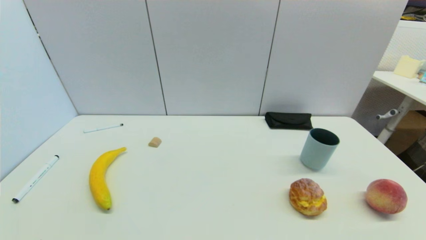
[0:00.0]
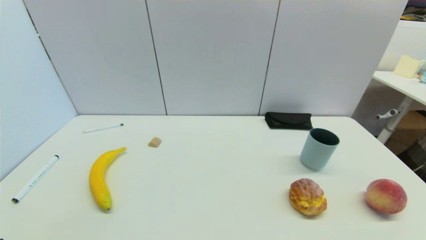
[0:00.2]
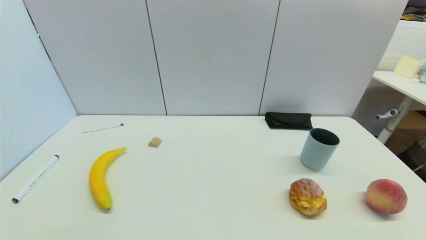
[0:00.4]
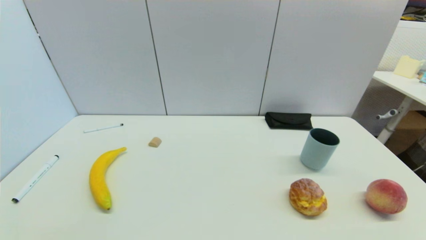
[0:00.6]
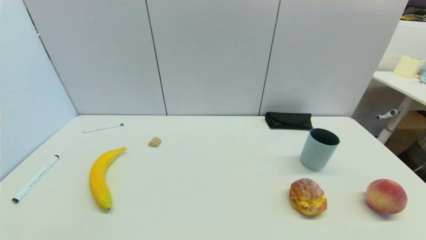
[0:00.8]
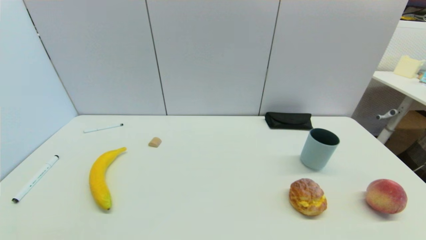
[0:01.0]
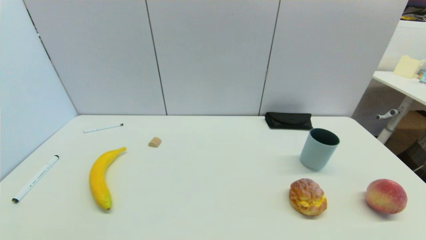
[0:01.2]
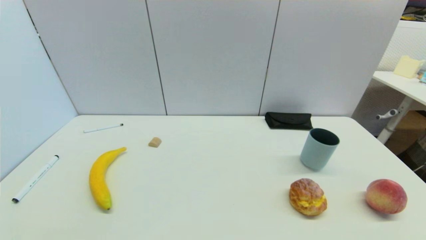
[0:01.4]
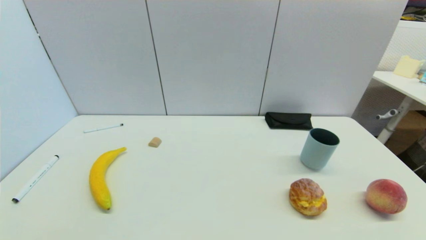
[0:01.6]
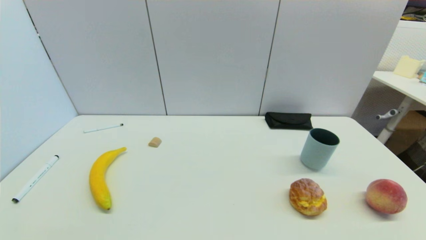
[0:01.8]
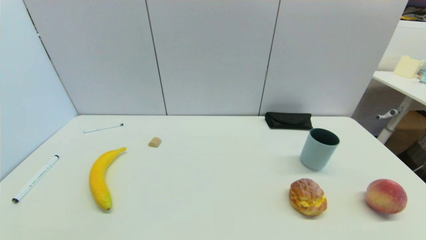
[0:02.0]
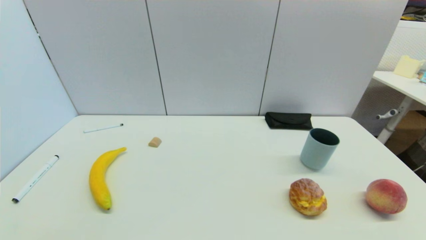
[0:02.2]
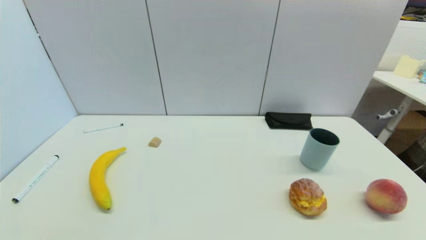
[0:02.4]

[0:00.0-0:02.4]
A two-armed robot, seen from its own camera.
Task of the whole recording: put the black marker in the designated position.
0:01.2 to 0:02.4: Neither gripper changes place.
